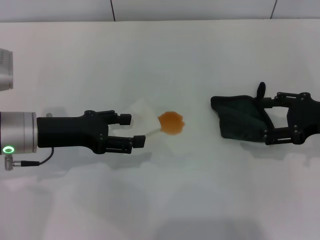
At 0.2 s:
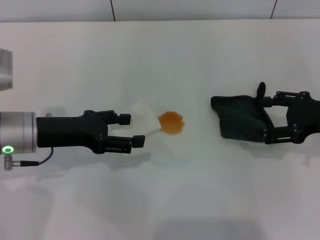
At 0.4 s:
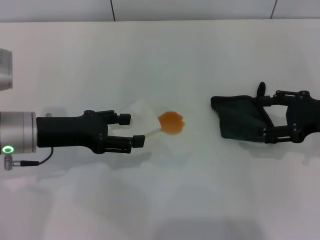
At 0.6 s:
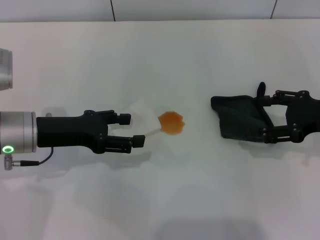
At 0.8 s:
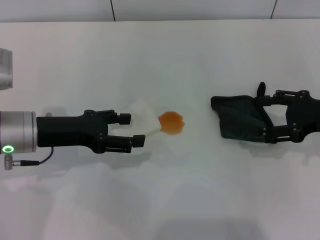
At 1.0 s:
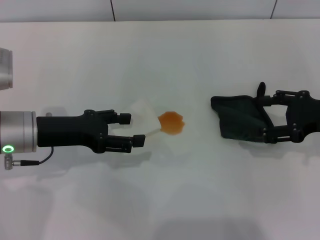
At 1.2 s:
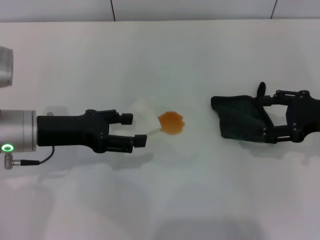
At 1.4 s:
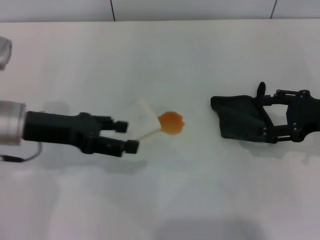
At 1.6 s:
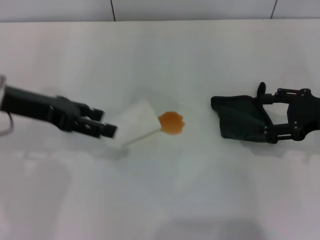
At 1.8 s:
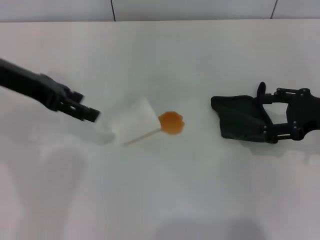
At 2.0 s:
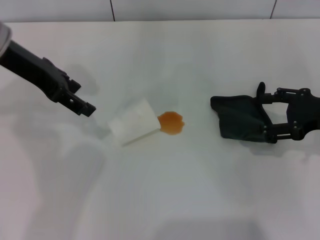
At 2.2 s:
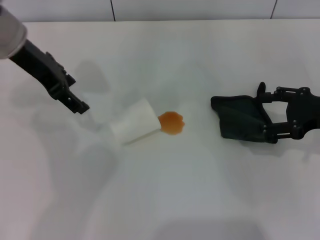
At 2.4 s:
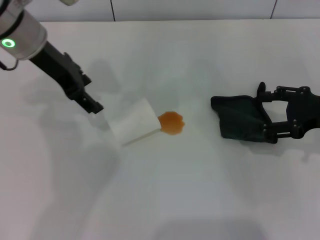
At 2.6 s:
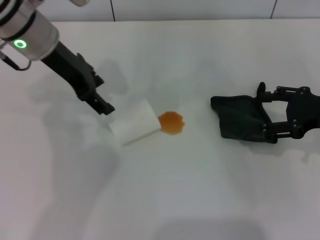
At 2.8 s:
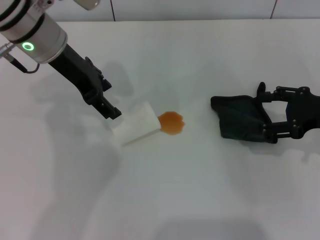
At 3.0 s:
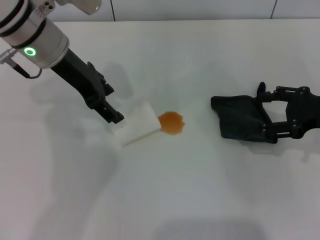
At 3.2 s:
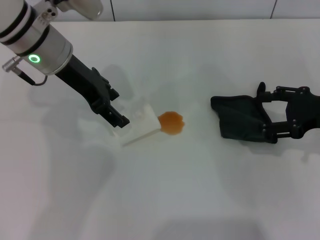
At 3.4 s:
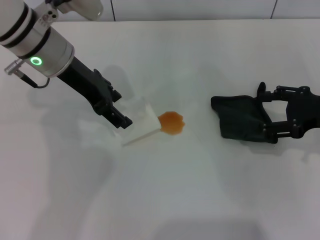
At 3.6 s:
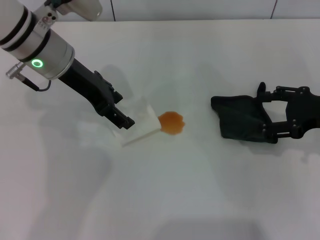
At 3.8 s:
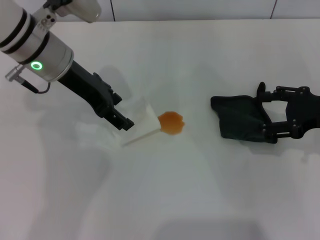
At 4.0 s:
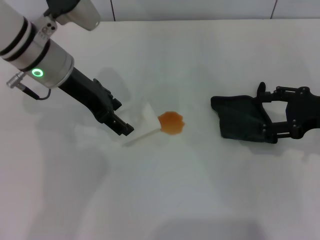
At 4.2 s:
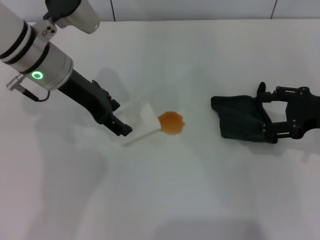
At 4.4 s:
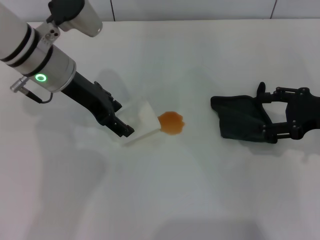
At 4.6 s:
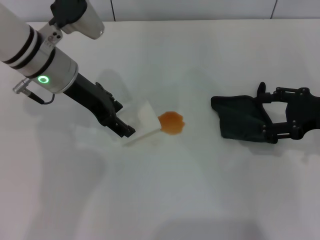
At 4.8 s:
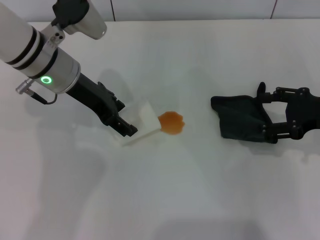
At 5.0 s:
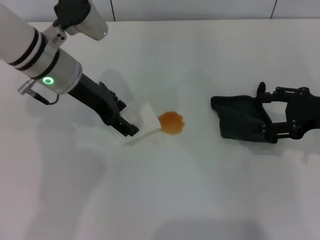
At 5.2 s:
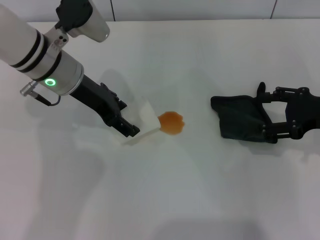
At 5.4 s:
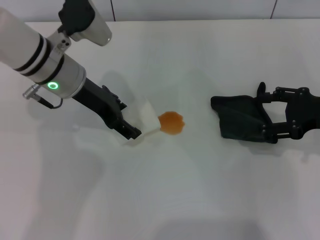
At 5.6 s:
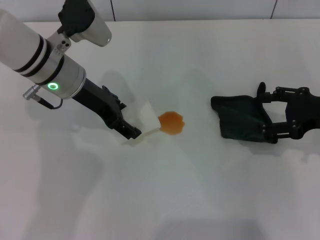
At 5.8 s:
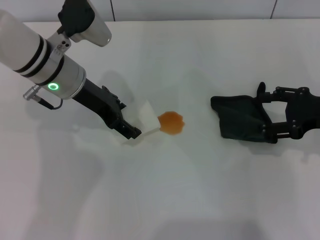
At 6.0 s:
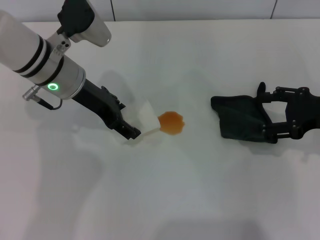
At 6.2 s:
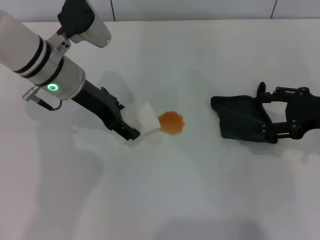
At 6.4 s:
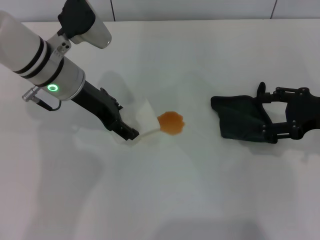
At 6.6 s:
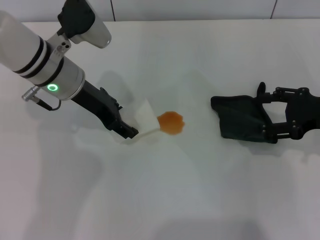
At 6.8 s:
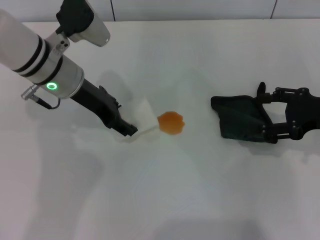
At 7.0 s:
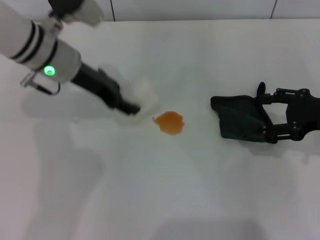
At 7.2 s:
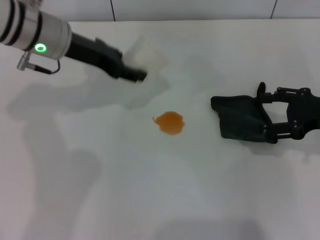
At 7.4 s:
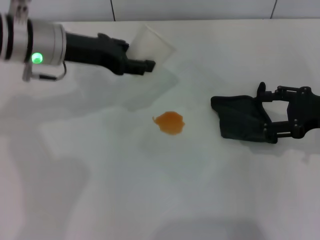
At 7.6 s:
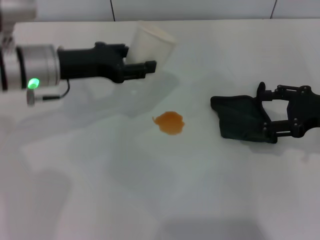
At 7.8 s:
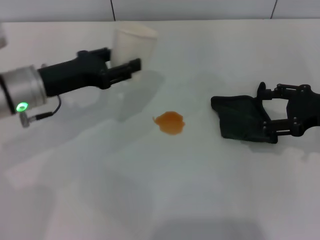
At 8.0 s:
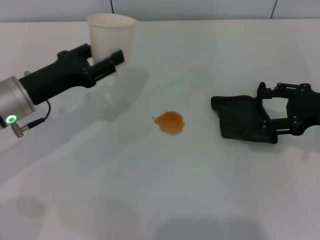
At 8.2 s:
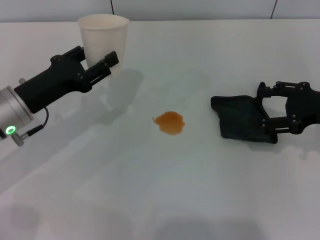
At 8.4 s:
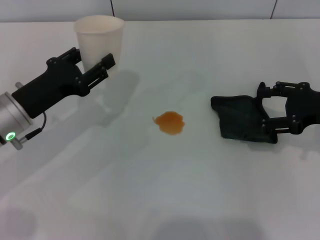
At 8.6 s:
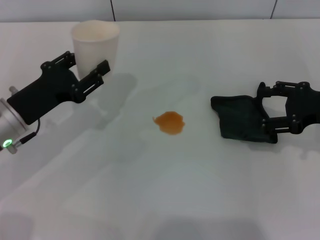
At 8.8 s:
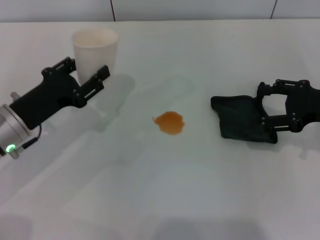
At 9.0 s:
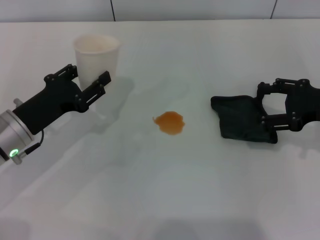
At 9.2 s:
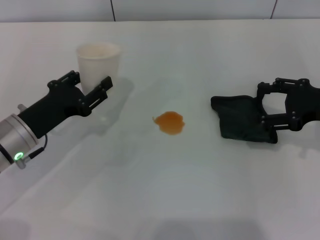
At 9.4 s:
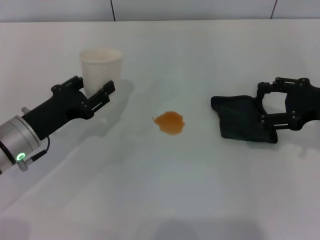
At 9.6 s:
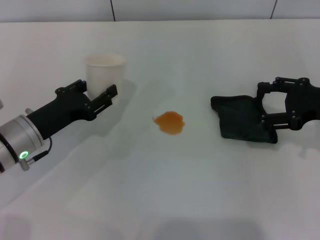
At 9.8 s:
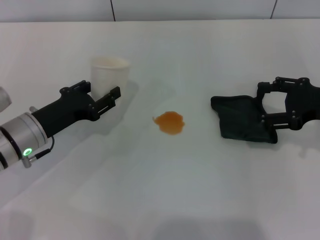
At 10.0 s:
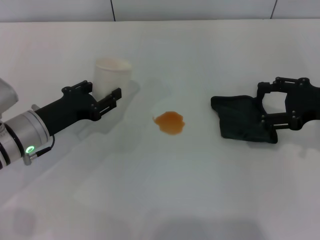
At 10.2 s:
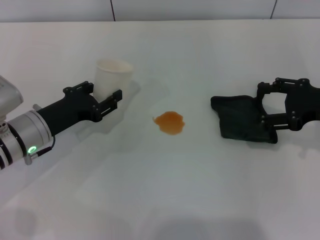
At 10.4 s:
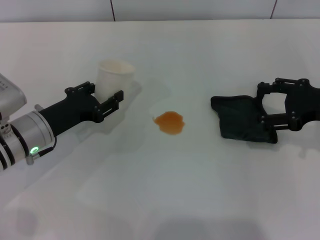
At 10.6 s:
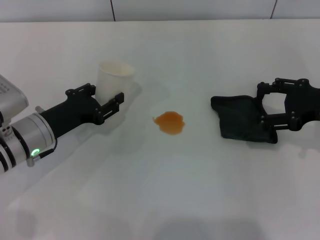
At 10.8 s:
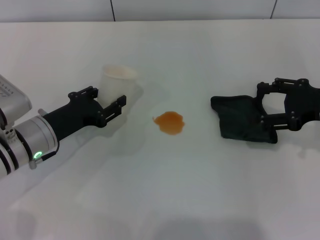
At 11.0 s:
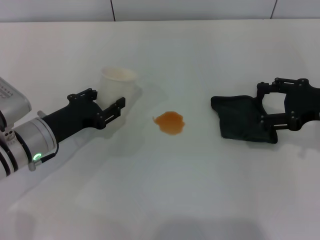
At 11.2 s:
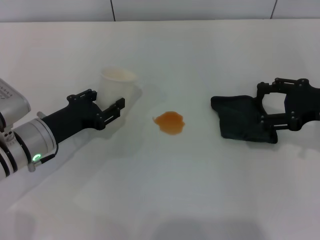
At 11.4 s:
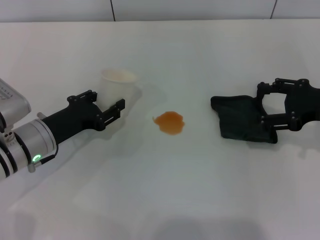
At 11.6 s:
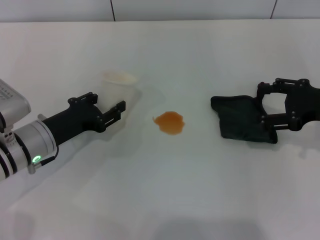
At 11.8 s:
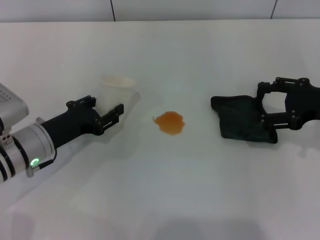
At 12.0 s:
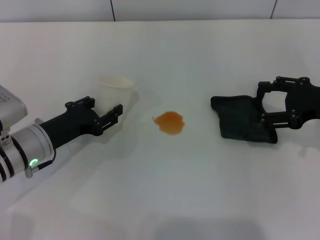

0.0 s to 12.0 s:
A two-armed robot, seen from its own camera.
Step, 0.0 to 6.4 s: Grasp the paper cup with the left gripper.
0.0 to 1.6 s: The left gripper moves upward, approximately 5 cm.
1.6 to 3.0 s: The left gripper goes approximately 10 cm to the right and forward.
3.0 to 6.0 s: The grippers make only small movements.
6.0 to 7.6 s: The left gripper changes place by roughly 5 cm, and closes up.
7.6 to 9.0 s: The left gripper is displaced backward and downward by about 10 cm.
9.0 to 12.0 s: There are only small adjustments of the grippers.

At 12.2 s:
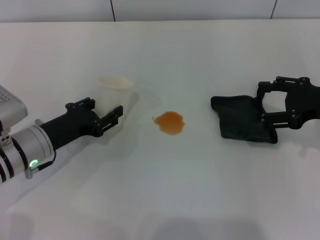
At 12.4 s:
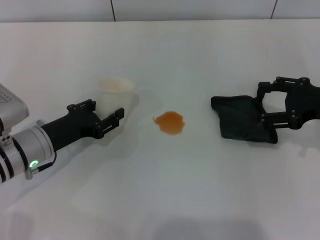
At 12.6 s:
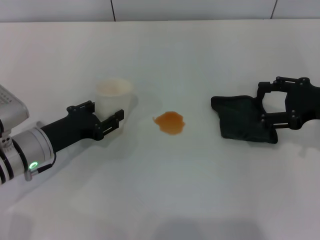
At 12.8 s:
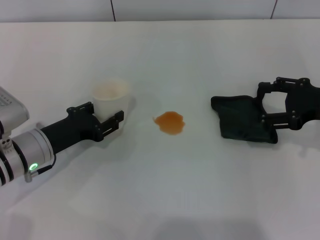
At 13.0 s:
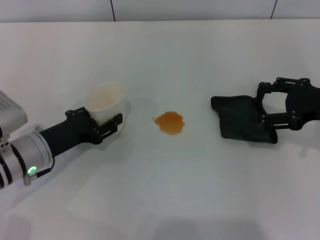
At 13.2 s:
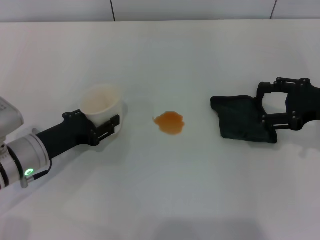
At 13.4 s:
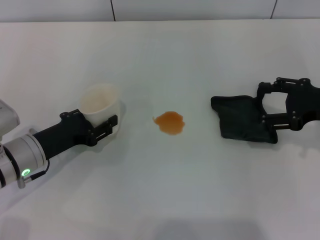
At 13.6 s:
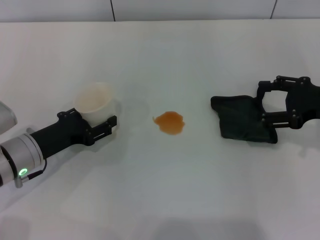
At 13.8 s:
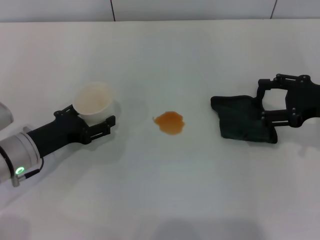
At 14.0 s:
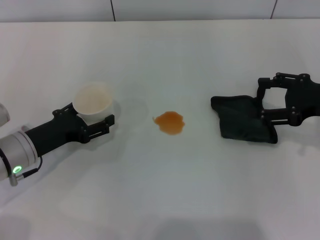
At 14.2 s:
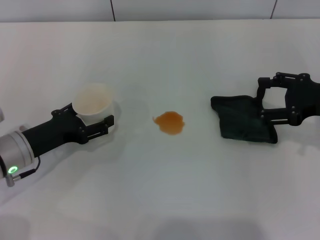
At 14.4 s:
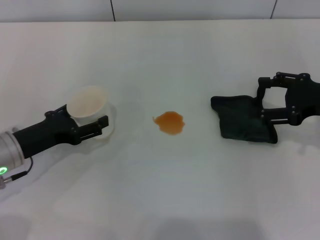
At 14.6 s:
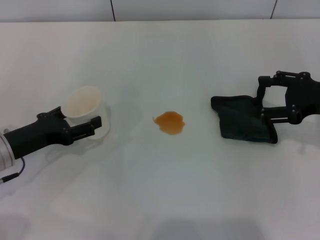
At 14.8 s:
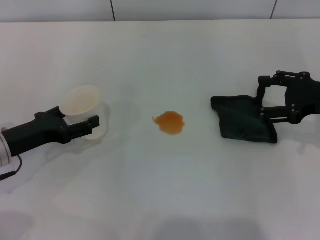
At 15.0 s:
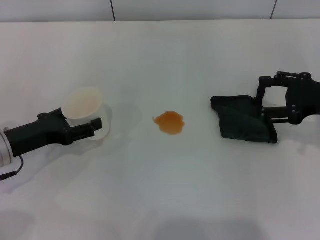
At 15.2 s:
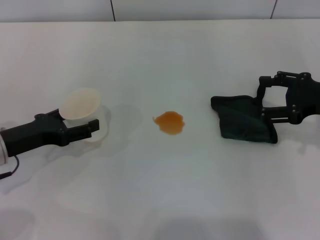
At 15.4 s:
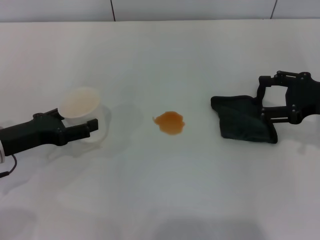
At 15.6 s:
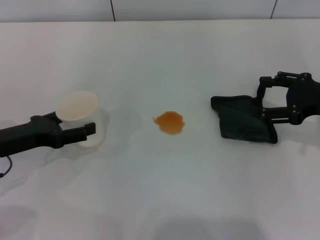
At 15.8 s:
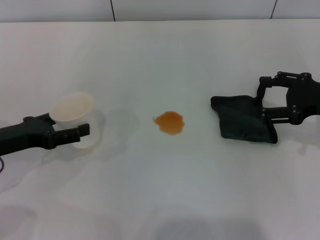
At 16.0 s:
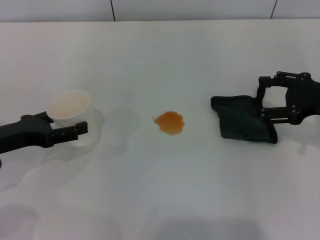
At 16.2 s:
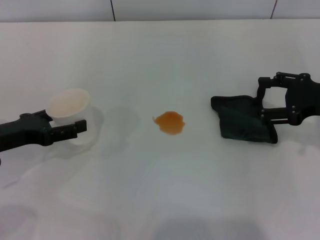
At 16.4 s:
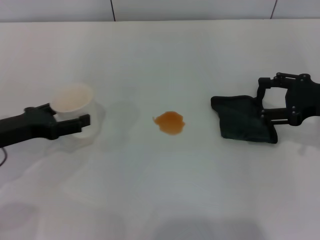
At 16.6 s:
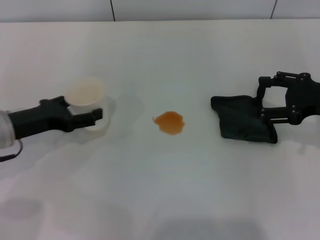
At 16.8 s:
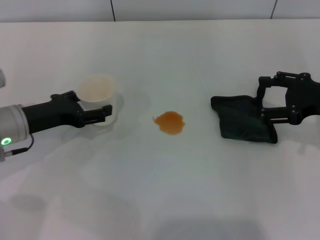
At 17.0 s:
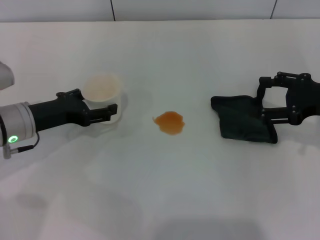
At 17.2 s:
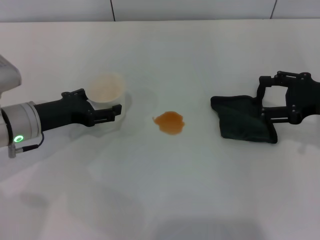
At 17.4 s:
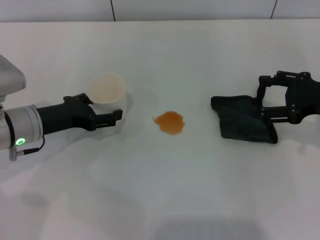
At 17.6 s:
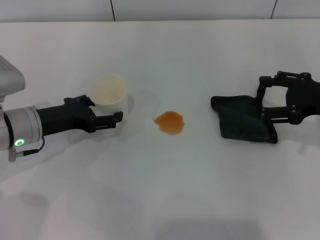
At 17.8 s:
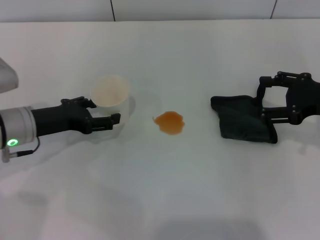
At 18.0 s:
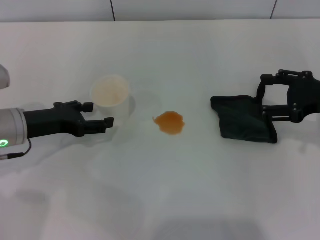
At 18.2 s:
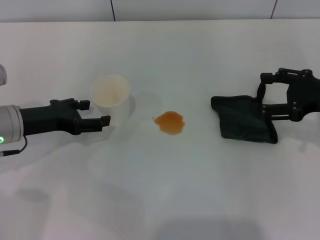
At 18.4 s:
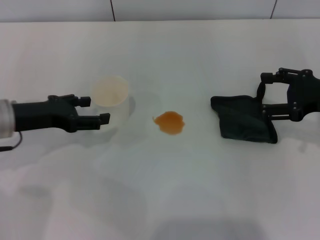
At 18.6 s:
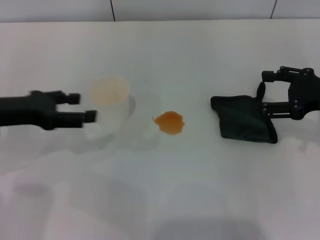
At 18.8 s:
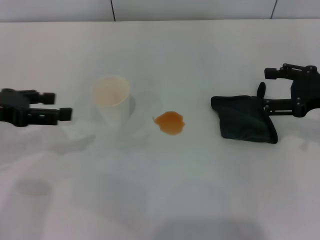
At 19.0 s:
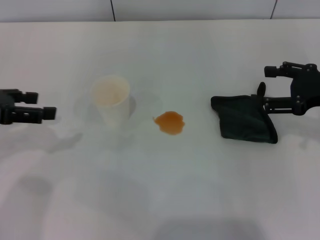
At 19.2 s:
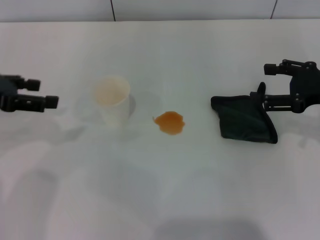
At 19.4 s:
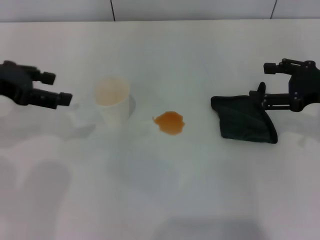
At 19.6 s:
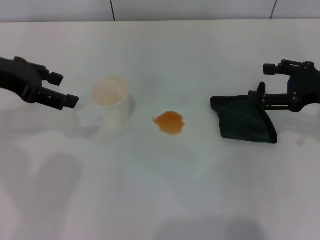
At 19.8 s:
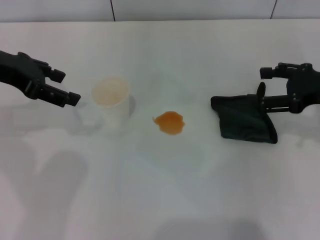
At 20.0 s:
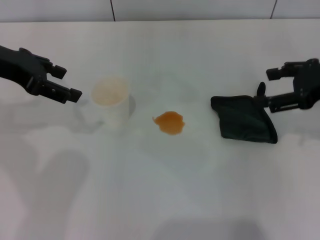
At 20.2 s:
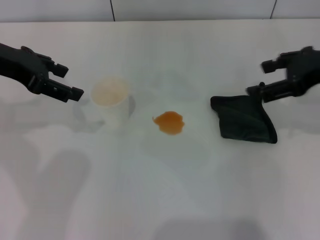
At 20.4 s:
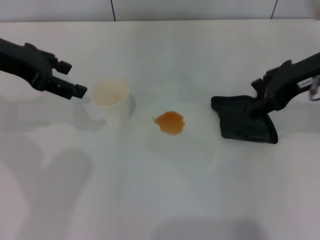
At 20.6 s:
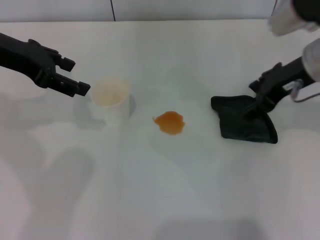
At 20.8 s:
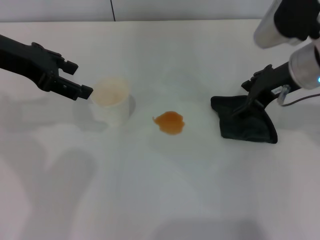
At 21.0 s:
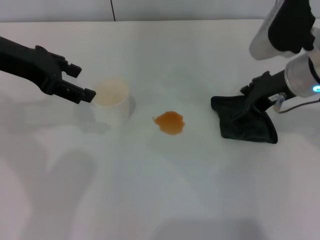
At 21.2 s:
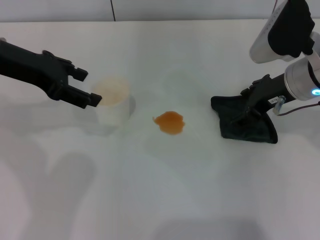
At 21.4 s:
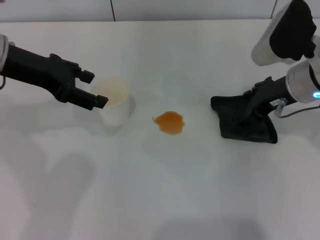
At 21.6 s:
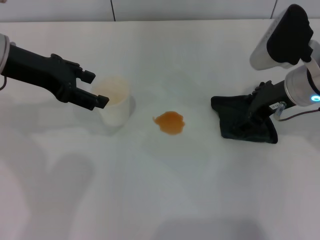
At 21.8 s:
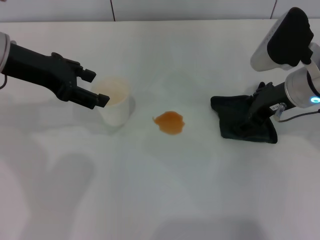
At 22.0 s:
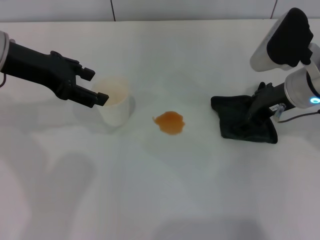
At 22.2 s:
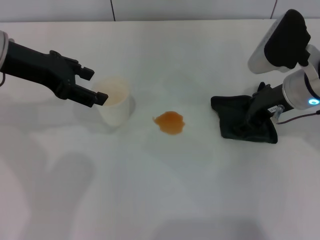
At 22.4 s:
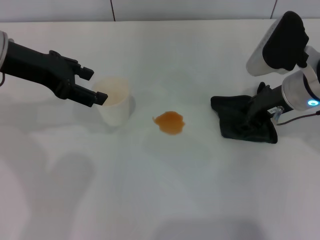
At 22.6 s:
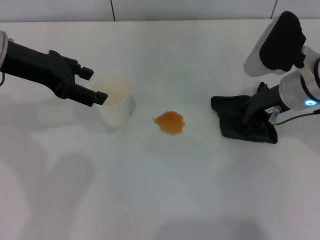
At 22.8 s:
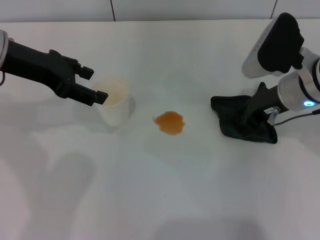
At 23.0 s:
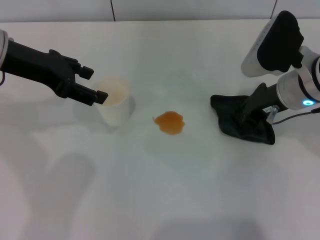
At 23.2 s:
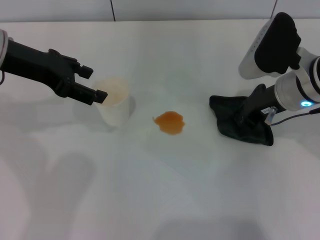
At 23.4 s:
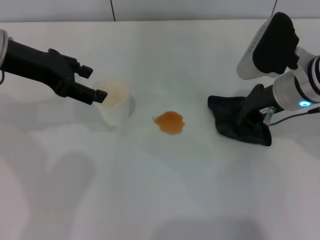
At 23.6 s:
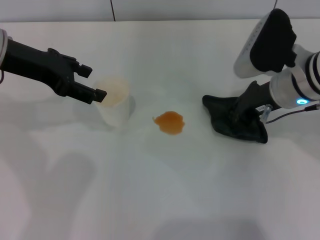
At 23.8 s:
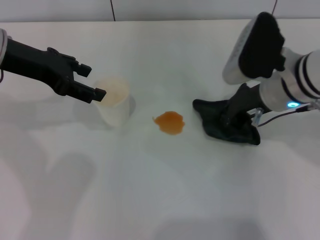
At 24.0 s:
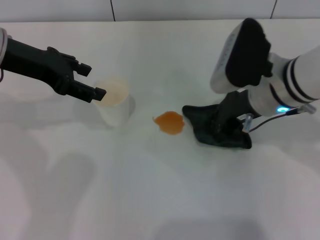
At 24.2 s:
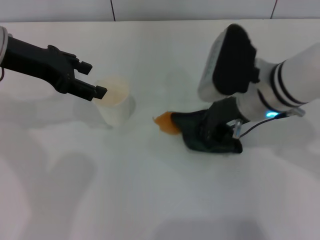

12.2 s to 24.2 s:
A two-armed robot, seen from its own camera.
Step, 12.2 to 18.6 s: Stand the paper cup upright with the left gripper.
Step, 18.8 to 23.6 s: Grasp the rag with the right gripper.
12.2 to 13.8 s: The left gripper opens.
13.8 to 15.2 s: The left gripper opens.
15.2 to 16.6 s: The grippers make only small movements.
16.6 to 18.2 s: The grippers move only a little.
18.2 to 19.8 s: The left gripper is displaced upward by about 15 cm.
19.8 to 21.2 s: The right gripper shifts approximately 10 cm to the left.
21.2 to 22.6 s: The right gripper closes.
22.6 to 24.2 s: The right gripper goes some 5 cm to the left, and closes.
